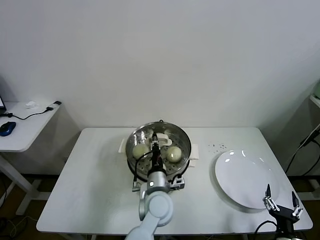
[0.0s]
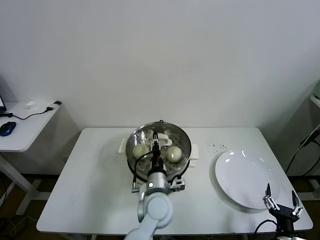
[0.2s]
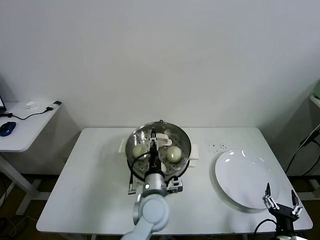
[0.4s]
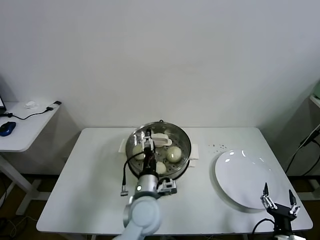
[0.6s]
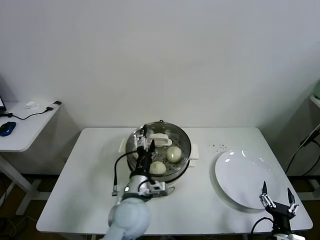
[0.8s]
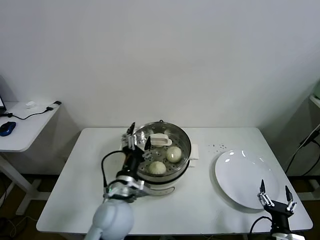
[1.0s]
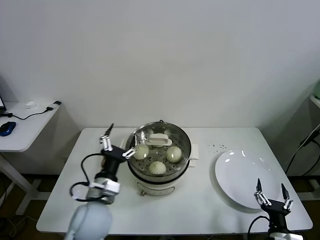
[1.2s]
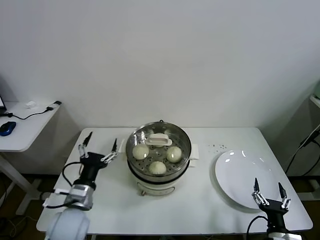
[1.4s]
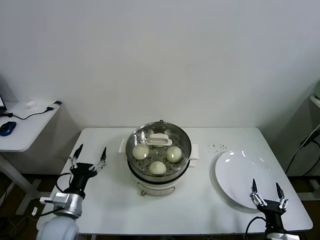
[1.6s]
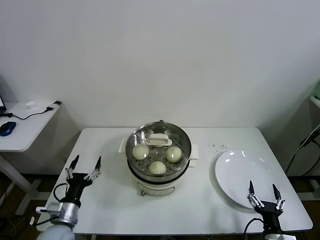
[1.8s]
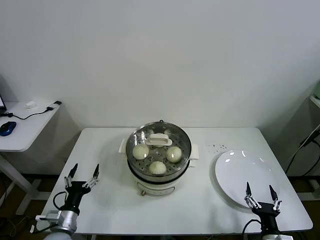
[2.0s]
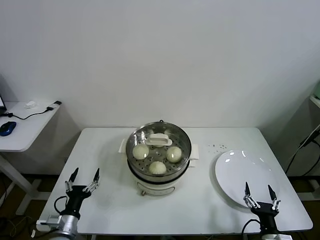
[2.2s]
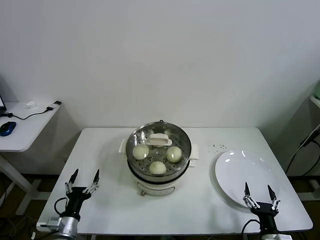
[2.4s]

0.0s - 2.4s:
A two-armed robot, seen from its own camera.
Task of the whole recording: take steamed baozi put them in steamer.
0.0s - 1.2s: The left gripper goes roughly 15 cm to the left, and opens.
1.2s - 2.4s: The left gripper travels to the left and downward by approximately 25 cm.

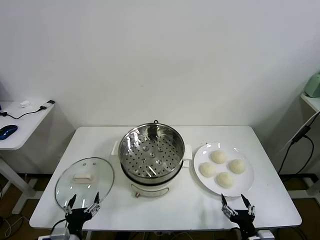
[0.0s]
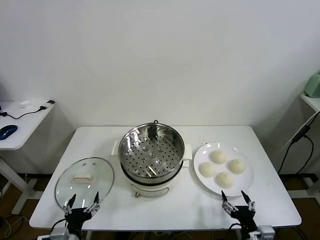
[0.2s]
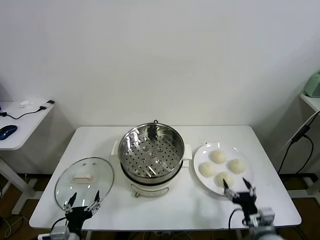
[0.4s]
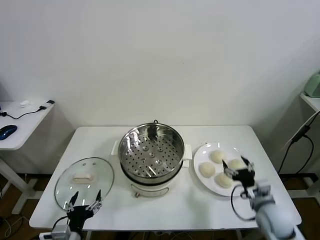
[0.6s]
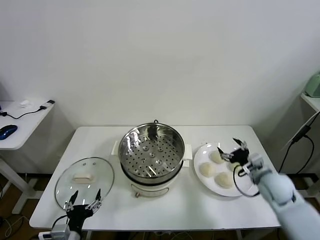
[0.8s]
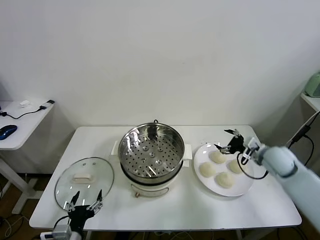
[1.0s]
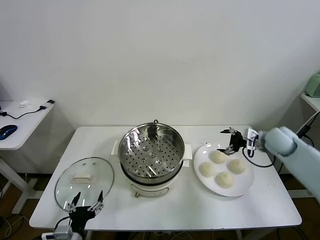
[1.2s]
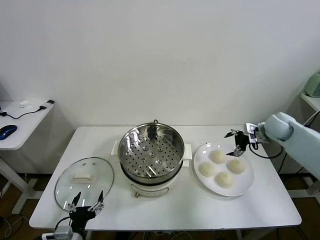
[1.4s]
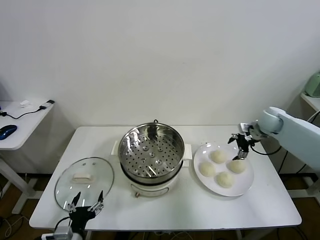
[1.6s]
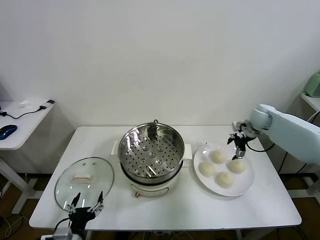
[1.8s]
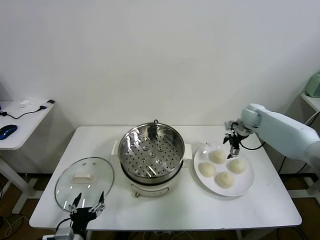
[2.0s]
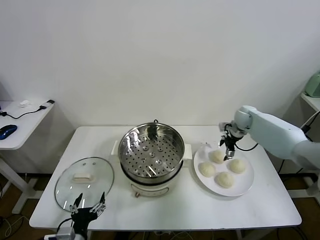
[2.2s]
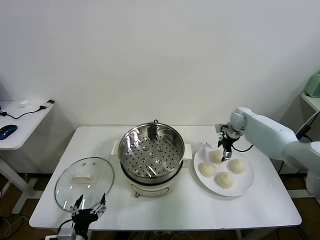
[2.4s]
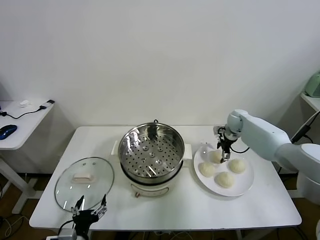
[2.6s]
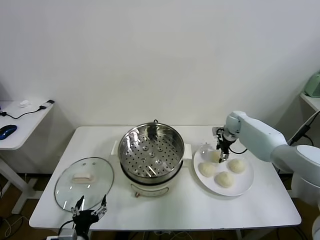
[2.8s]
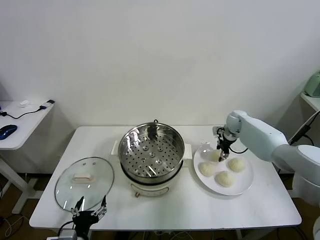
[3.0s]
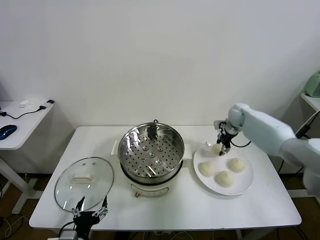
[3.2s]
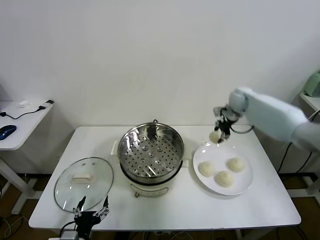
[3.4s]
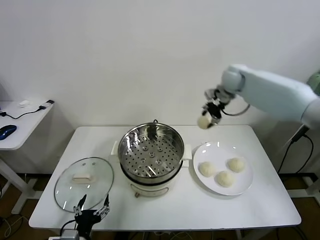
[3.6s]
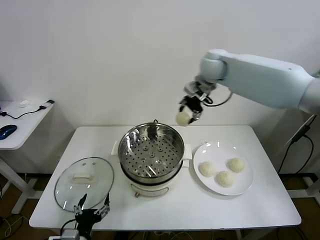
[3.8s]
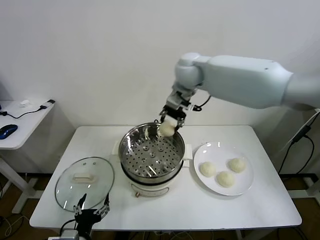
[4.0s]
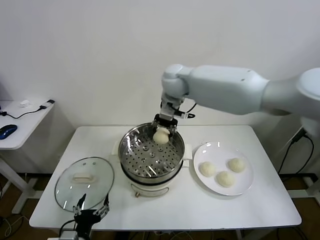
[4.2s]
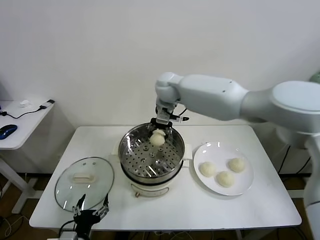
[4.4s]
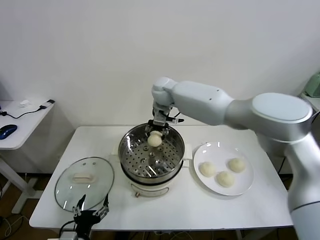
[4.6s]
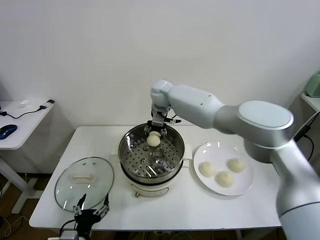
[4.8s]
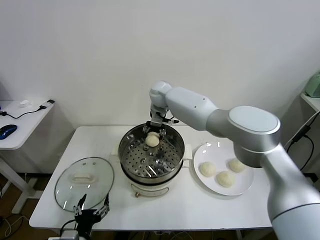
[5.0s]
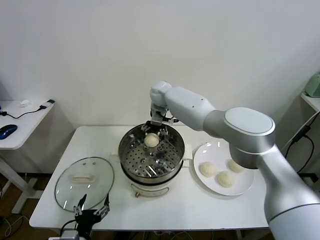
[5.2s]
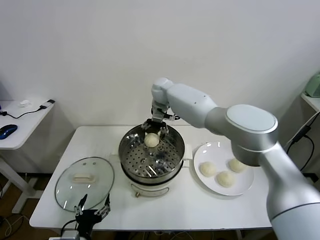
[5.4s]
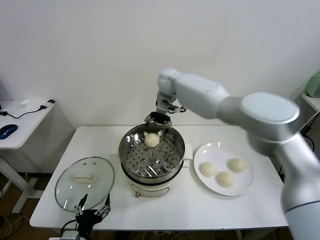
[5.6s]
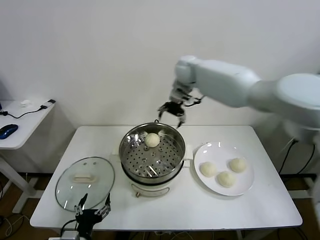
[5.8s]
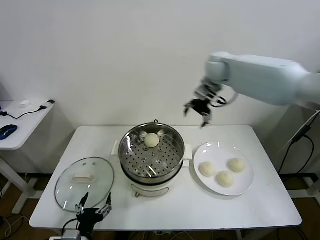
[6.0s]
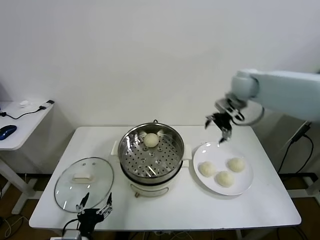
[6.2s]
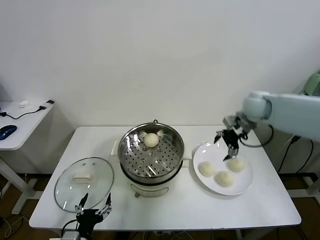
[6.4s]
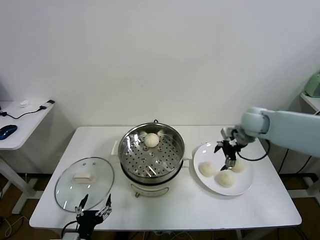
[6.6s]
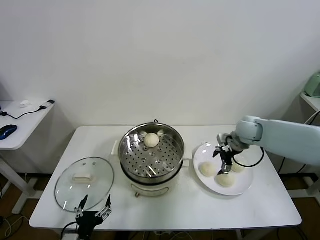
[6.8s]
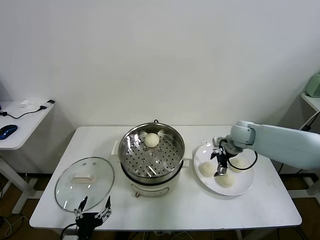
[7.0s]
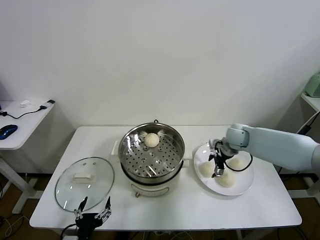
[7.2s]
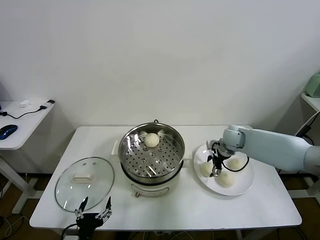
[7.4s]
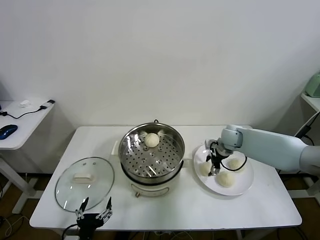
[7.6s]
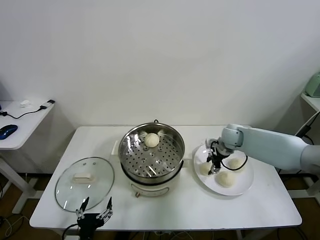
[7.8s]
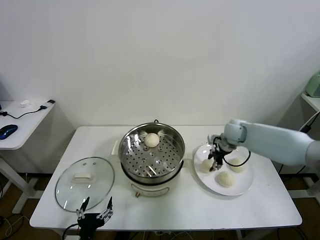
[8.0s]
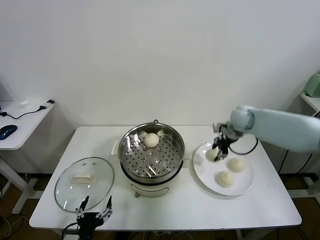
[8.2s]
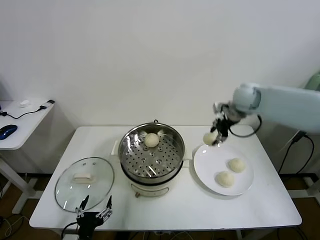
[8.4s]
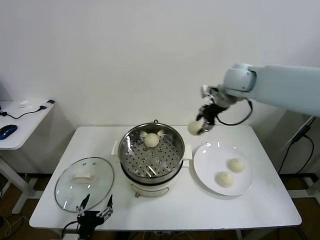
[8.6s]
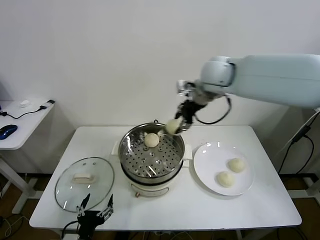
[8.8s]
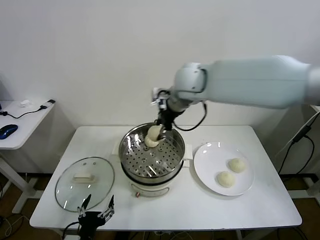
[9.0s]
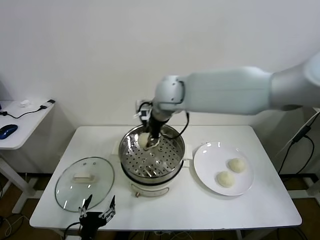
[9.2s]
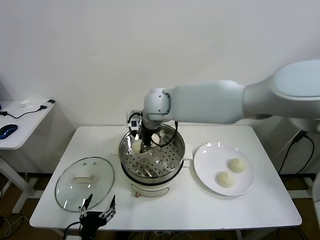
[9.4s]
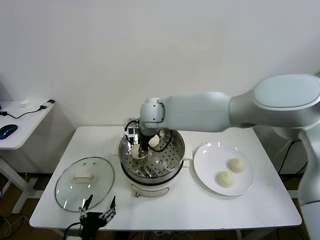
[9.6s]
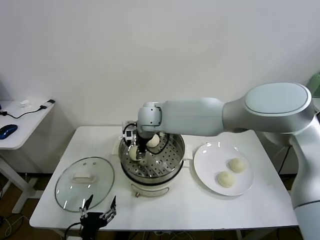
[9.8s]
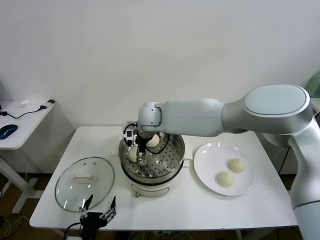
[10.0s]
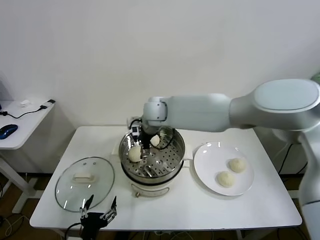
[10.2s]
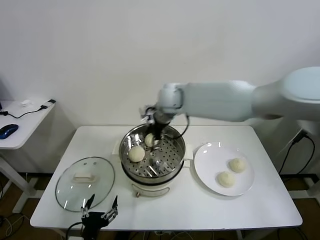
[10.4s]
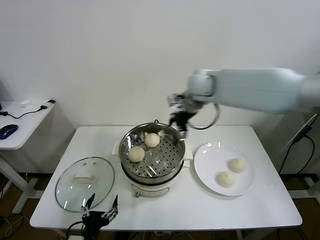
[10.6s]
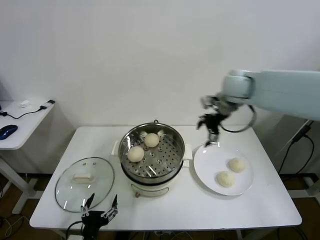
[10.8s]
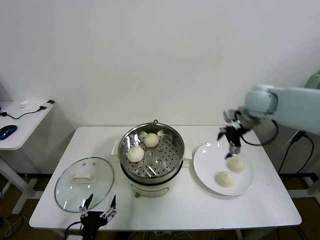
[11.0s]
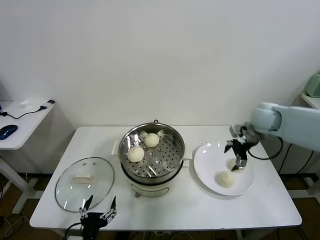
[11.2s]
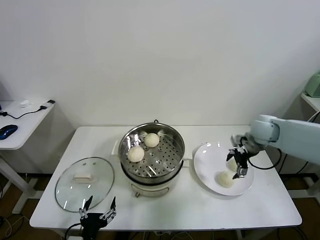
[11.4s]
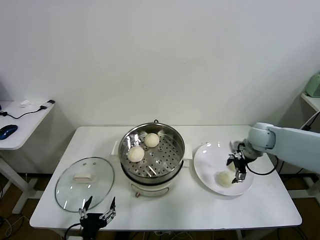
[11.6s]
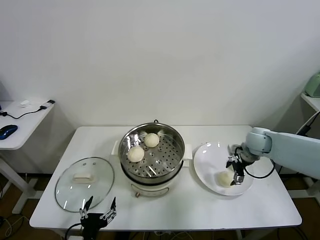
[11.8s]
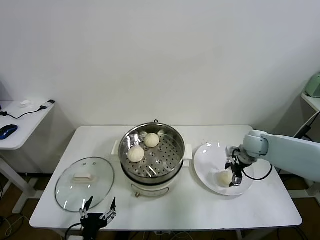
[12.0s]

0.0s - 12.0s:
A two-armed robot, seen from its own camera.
Task of the whole recording: take steamed baozi put them in steamer.
Step, 0.0s - 2.6s: Grasp the baozi in the plate with right gripper.
Step, 3.0s - 5.2s: Place the baozi on the steamer with right gripper.
Step, 5.4s - 7.8s: Grasp the baozi in the plate with right gripper.
Step, 8.0s - 10.0s: Place the baozi on the steamer with right gripper.
1.6s - 3.0s: The right gripper goes roughly 10 cm to the left, forward and downward, and closes its fingers.
3.0s - 4.4s: The right gripper moves to the left and upward, approximately 35 cm.
4.4s - 6.0s: The right gripper goes some 25 cm to the right, and opens its fingers.
6.0s - 7.6s: The right gripper travels downward by approximately 25 cm, and closes up.
7.6s - 9.0s: The right gripper shifts about 35 cm upward and to the left.
9.0s - 10.4s: The right gripper opens.
10.4s - 12.0s: The right gripper moves to the right and downward, about 35 cm.

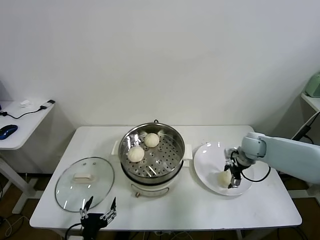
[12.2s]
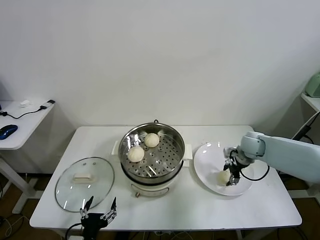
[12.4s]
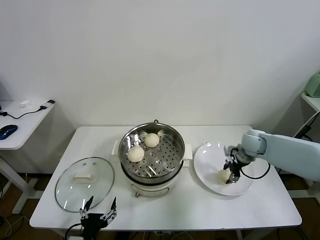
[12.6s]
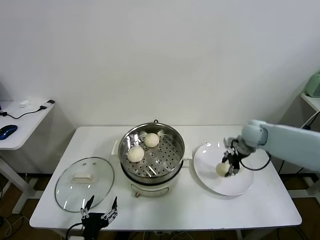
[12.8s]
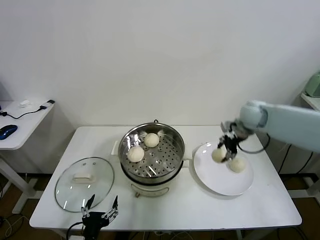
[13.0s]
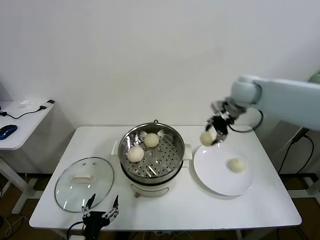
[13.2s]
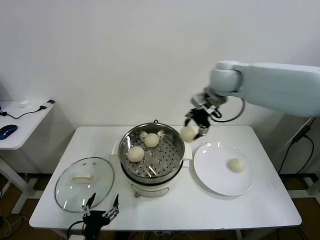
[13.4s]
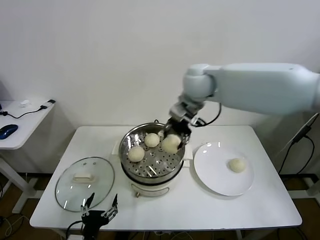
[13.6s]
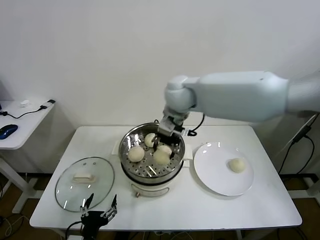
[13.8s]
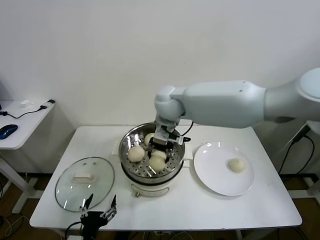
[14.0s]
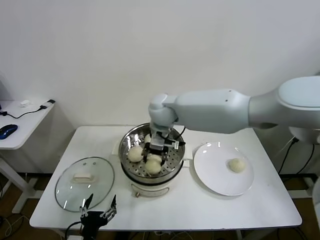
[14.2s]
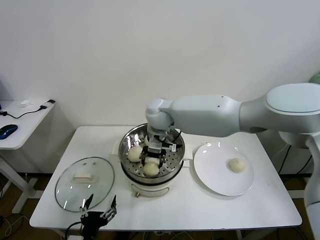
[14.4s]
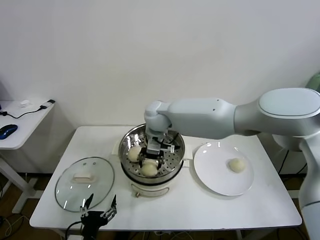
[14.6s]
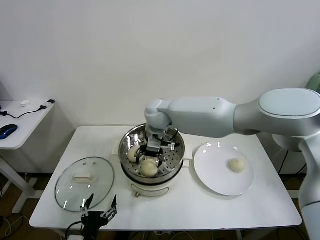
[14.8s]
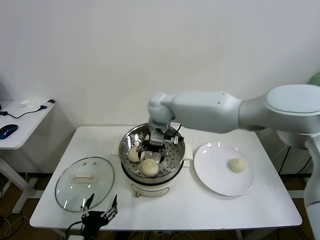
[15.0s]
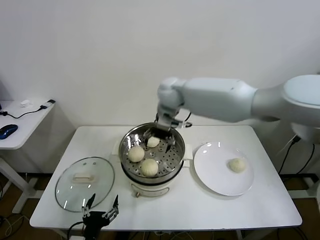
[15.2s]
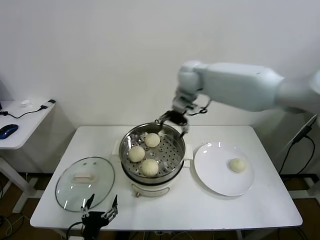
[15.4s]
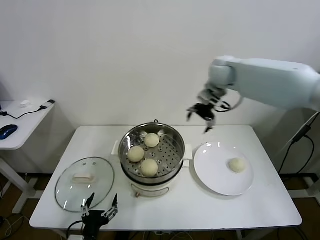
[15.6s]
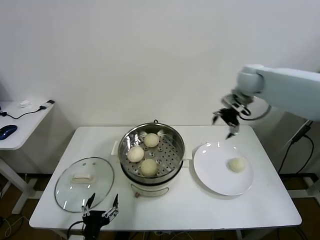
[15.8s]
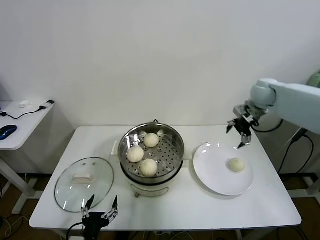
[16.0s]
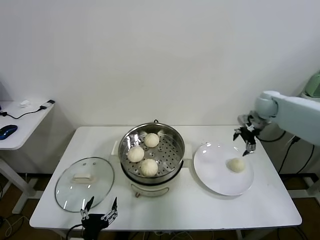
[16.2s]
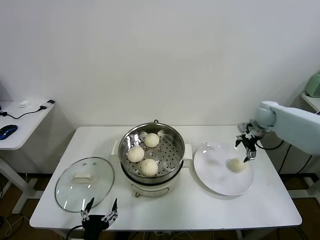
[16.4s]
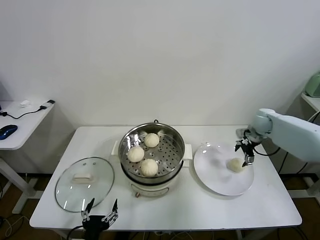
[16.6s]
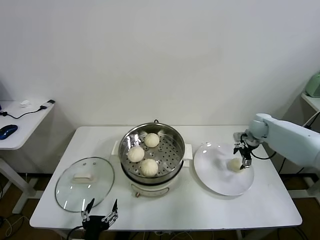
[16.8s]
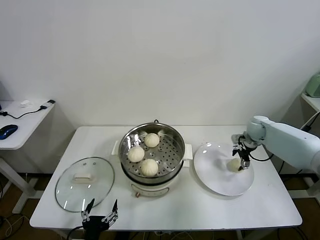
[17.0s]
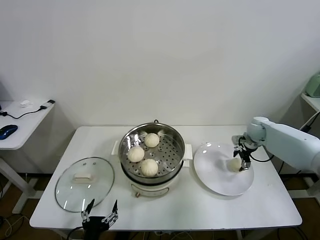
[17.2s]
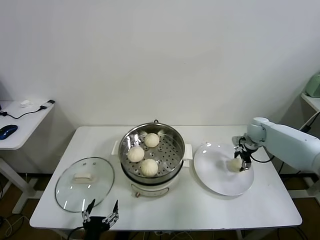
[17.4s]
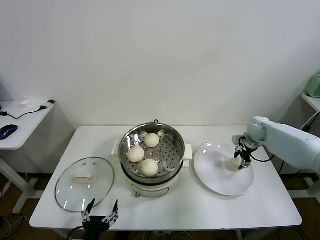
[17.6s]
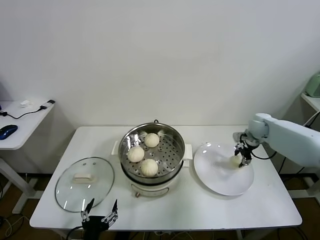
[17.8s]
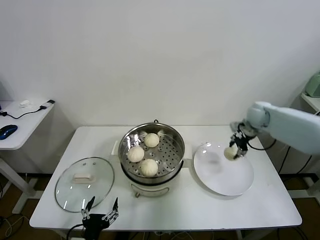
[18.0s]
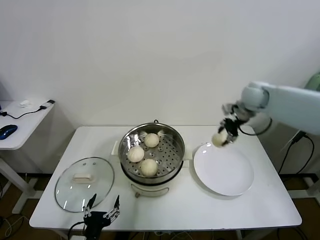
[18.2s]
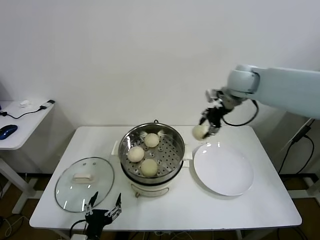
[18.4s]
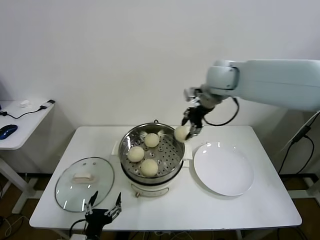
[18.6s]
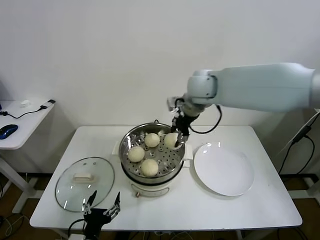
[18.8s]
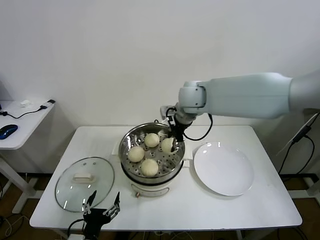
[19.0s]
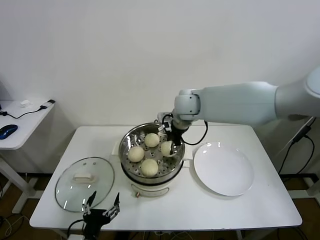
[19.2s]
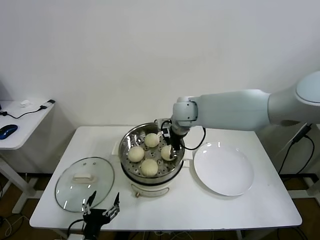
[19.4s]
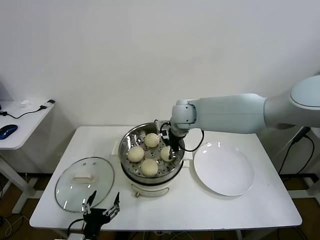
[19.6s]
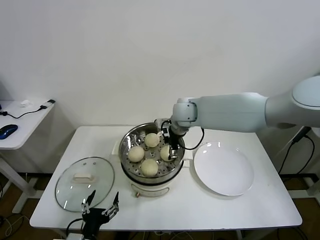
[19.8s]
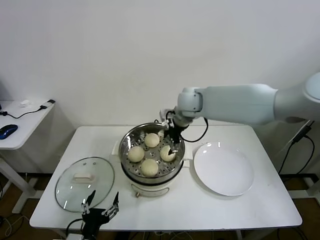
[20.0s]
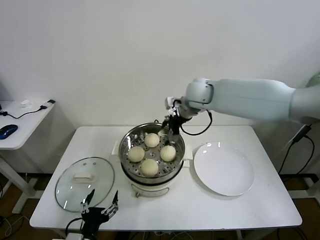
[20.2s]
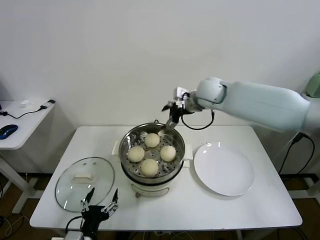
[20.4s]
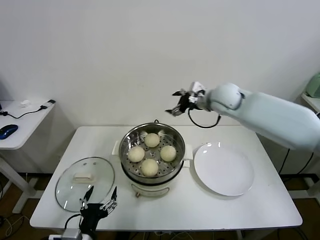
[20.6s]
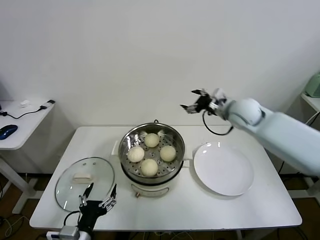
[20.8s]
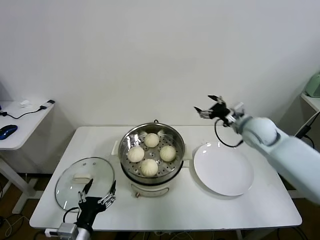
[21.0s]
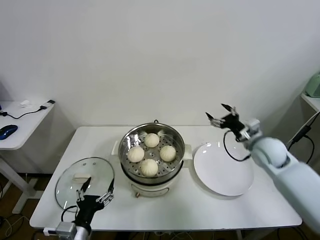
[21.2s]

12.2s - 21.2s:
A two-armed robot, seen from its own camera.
Task of the whole recording: take steamed baozi put them in steamer.
Step, 12.6s - 14.8s: Place the baozi on the steamer with right gripper.
Step, 15.0s - 17.2s: Grasp the baozi in the plate with right gripper.
Step, 17.6s - 19.8s: Place the baozi on the steamer with right gripper.
12.2s - 13.8s: The right gripper shifts about 40 cm to the left and upward, and closes its fingers.
13.8s - 15.2s: The right gripper moves forward, roughly 5 cm, travels downward and back again, roughly 10 cm each way, and opens its fingers.
15.2s - 16.6s: The right gripper goes approximately 40 cm to the right and downward.
16.6s - 18.2s: The right gripper moves upward and to the left, approximately 20 cm, and closes up.
18.2s - 19.8s: The right gripper moves to the left, some 20 cm, and opens.
19.8s - 21.2s: The right gripper travels to the right and backward by about 30 cm.
